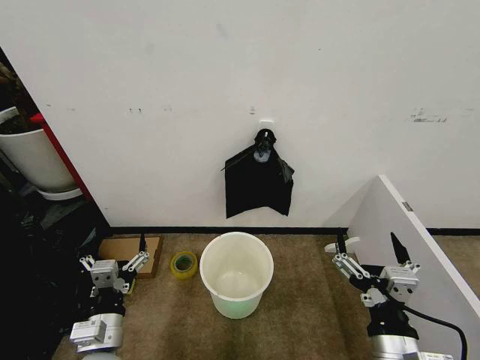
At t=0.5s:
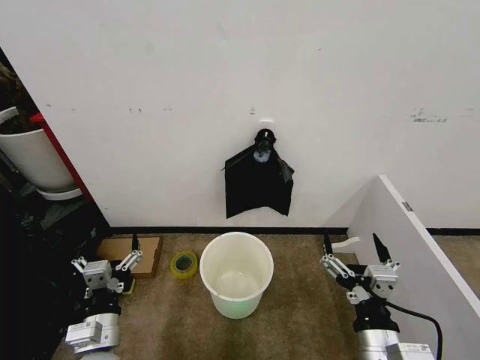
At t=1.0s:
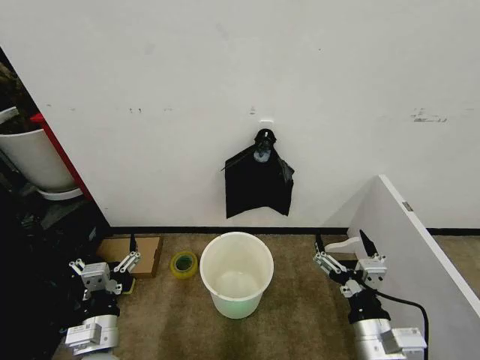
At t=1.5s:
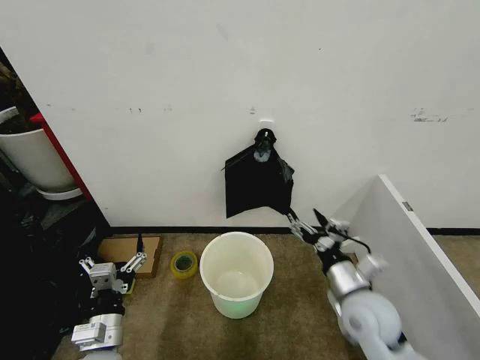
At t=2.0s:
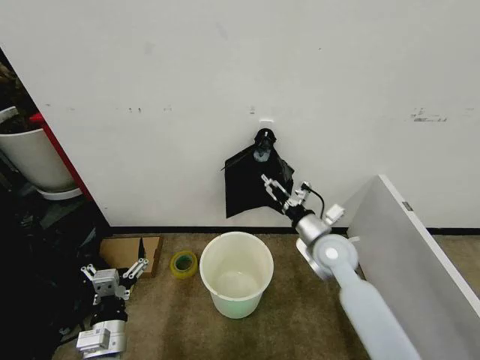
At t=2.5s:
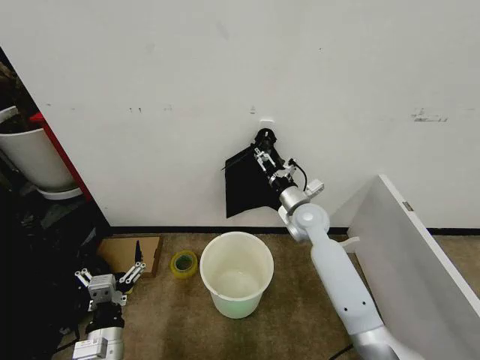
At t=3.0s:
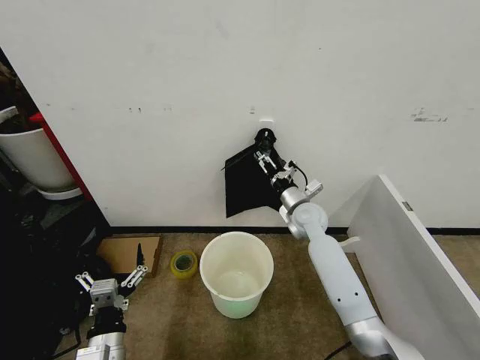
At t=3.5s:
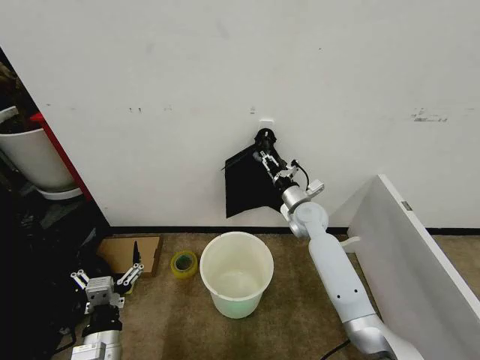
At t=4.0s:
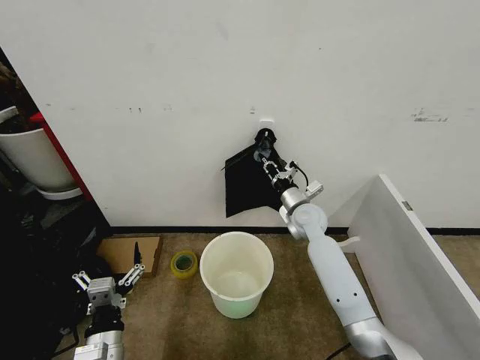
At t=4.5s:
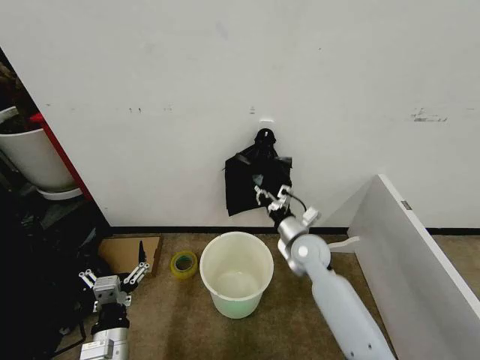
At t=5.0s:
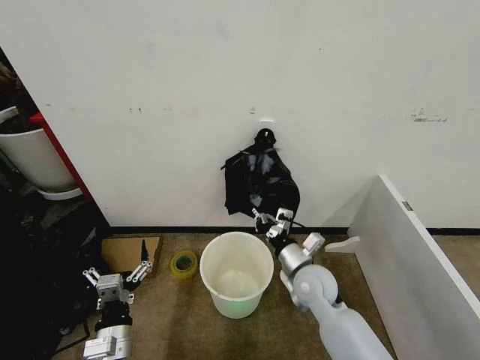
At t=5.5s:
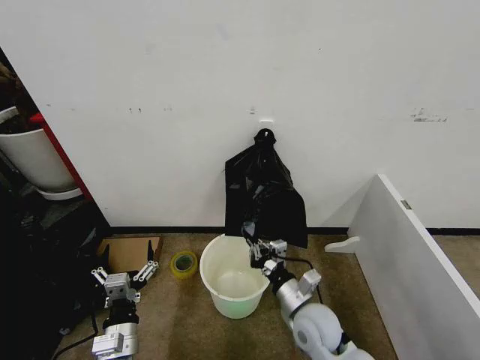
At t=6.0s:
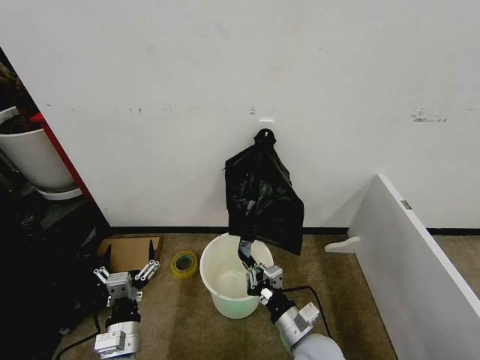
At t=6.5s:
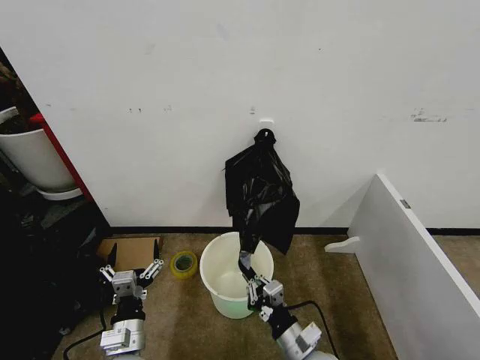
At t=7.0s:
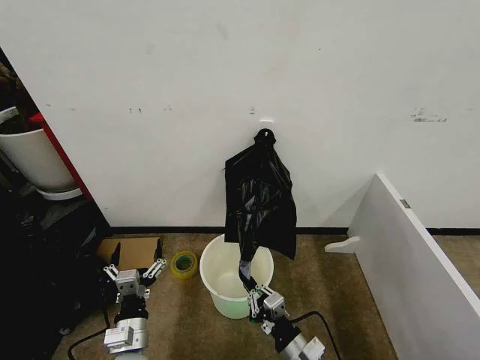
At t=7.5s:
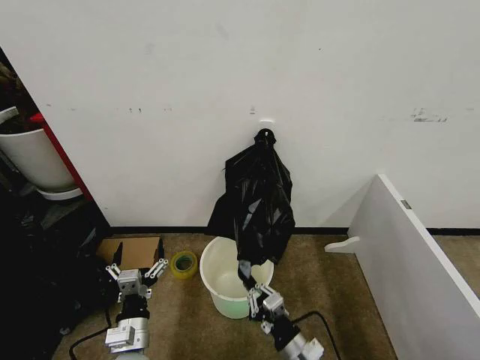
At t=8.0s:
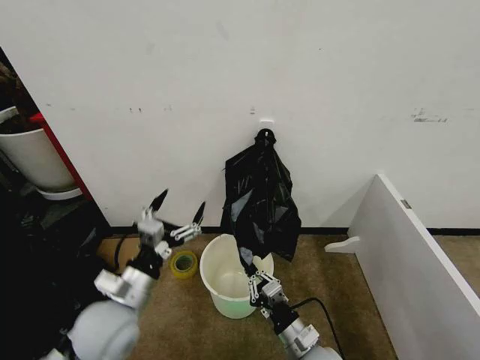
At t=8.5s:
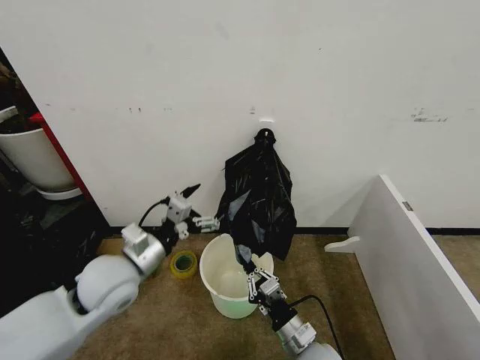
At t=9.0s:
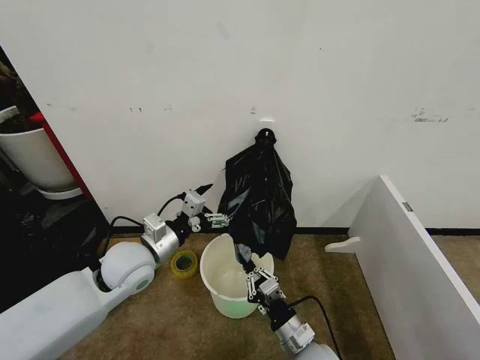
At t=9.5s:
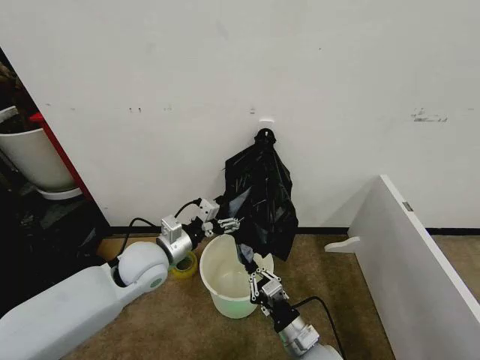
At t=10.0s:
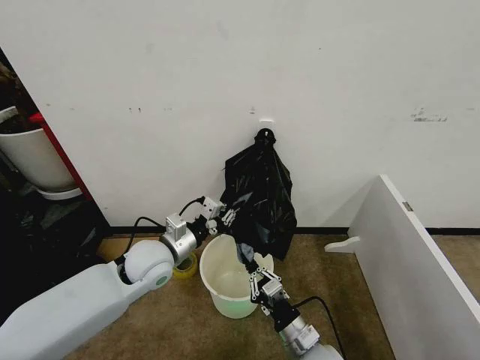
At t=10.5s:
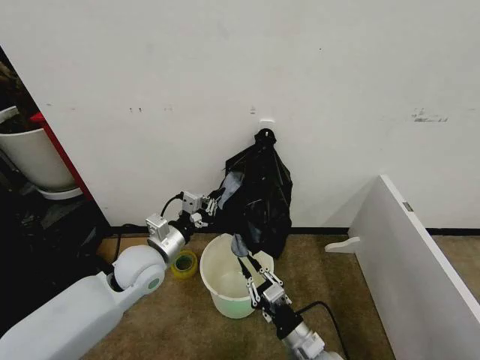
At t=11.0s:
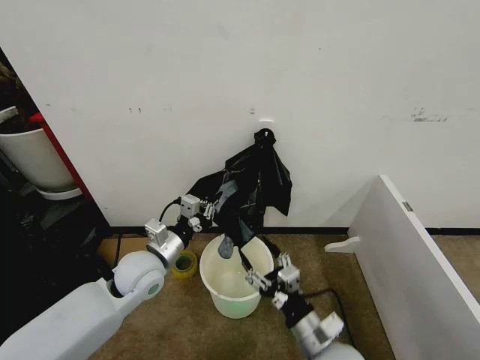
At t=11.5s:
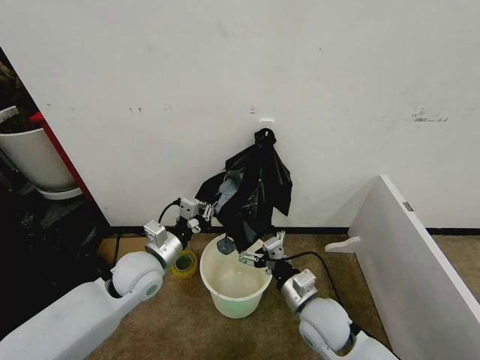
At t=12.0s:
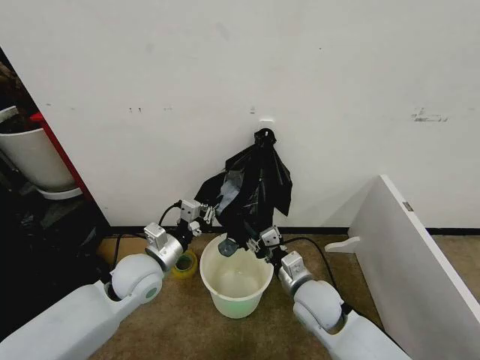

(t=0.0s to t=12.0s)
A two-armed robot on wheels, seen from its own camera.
Task of the whole recording: Place the garbage bag over the trash bin.
t=2.0s - t=4.0s: The right gripper goes approximately 10 cm forward, and closes its fingers.
t=4.0s - t=6.0s: The right gripper heads backward, covering roughly 30 cm.
t=6.0s - t=8.0s: The left gripper travels upward by roughly 5 cm.
t=8.0s - t=10.0s: The left gripper is displaced forward by some 15 cm, and closes its fingers.
t=10.0s - t=12.0s: The right gripper heads forward and upward, covering approximately 15 cm, and opens.

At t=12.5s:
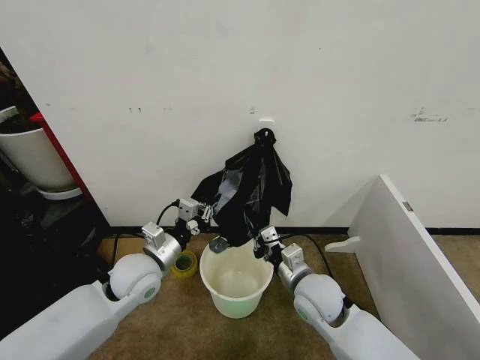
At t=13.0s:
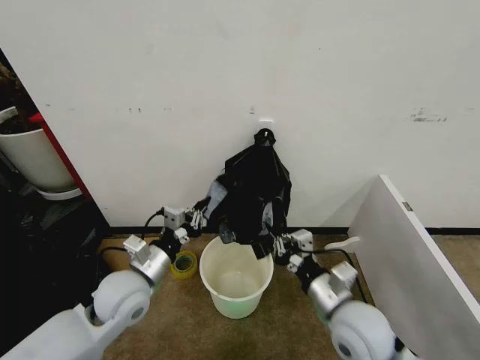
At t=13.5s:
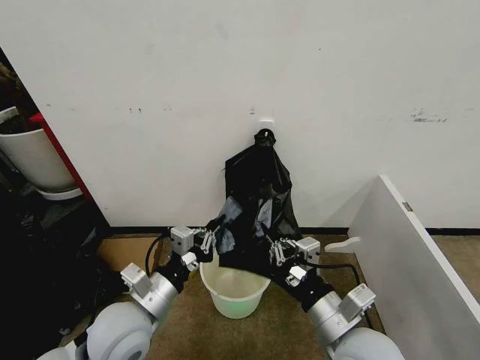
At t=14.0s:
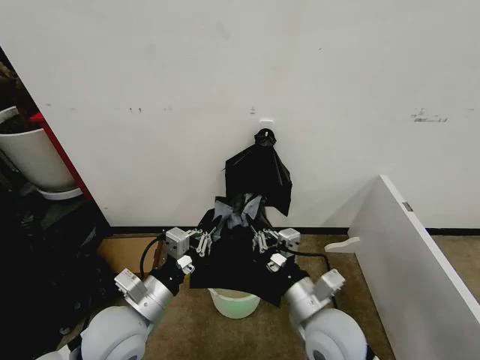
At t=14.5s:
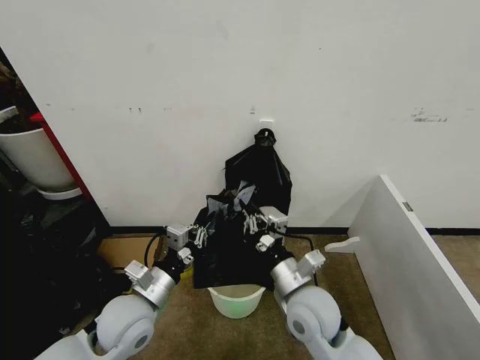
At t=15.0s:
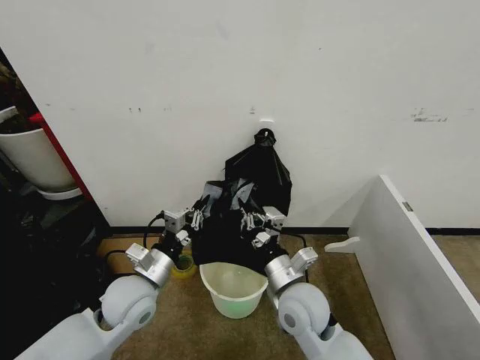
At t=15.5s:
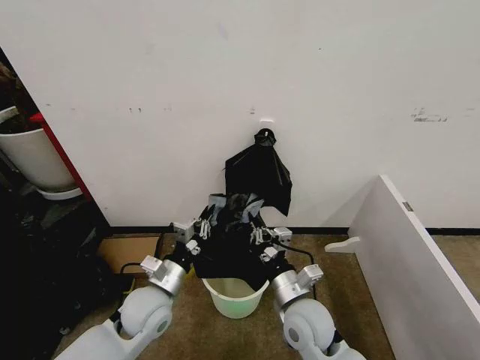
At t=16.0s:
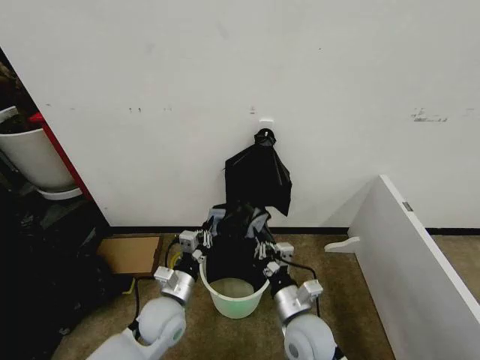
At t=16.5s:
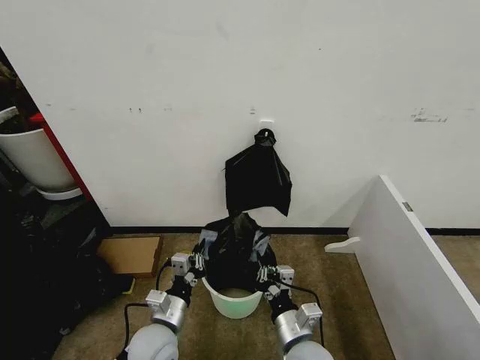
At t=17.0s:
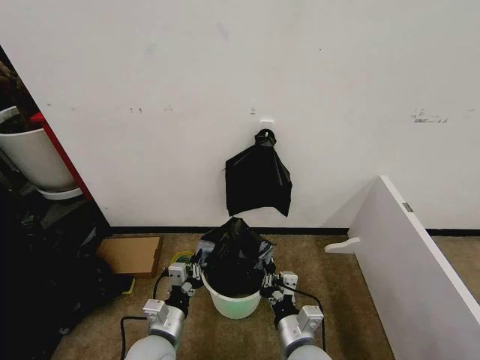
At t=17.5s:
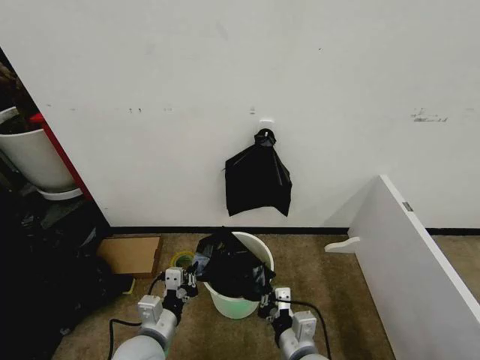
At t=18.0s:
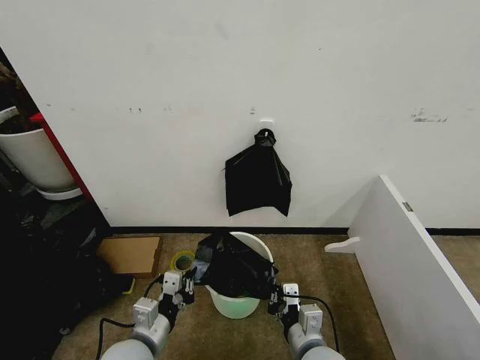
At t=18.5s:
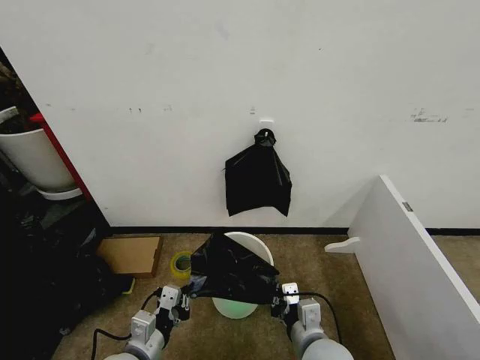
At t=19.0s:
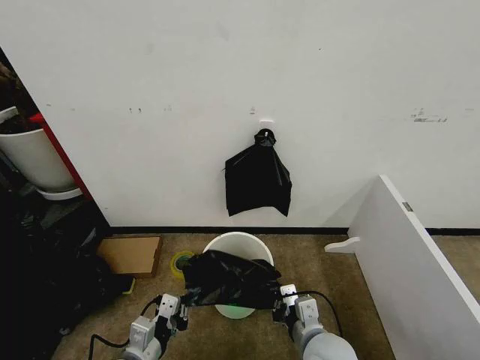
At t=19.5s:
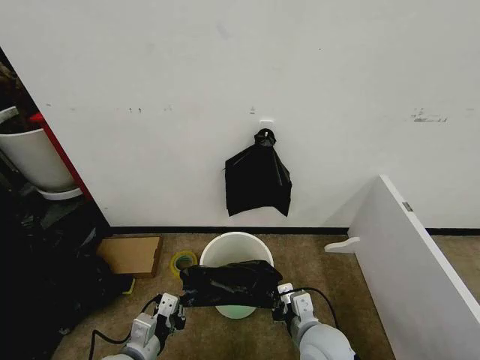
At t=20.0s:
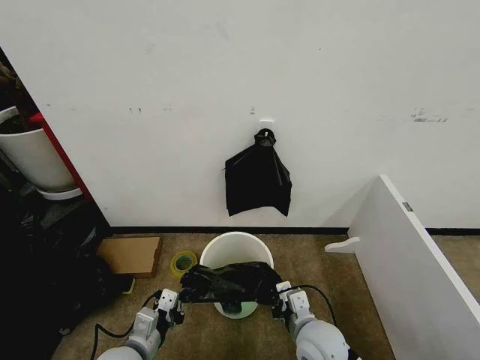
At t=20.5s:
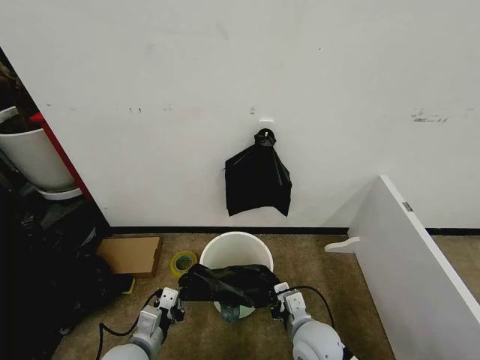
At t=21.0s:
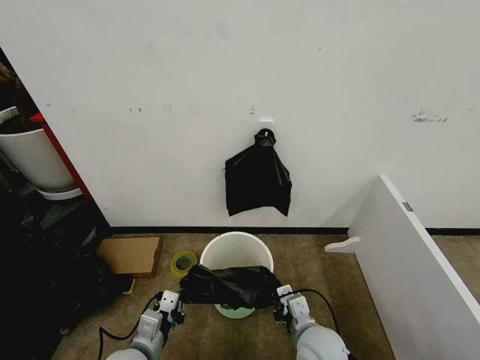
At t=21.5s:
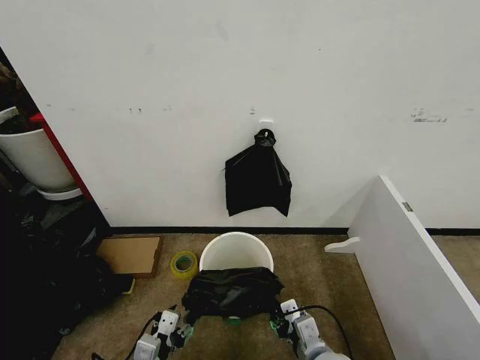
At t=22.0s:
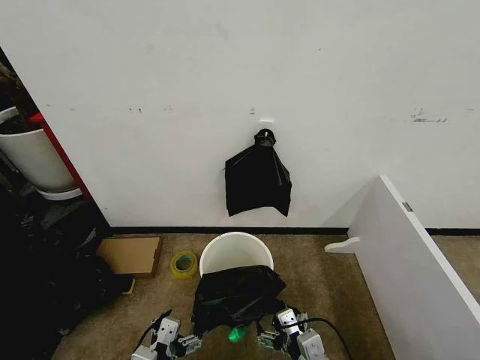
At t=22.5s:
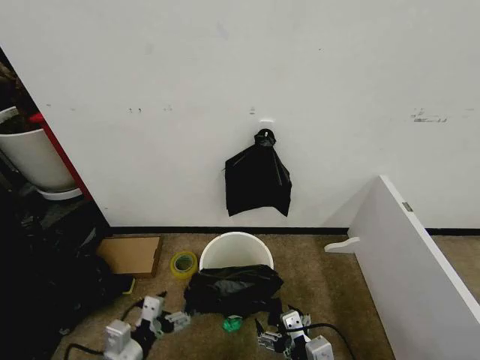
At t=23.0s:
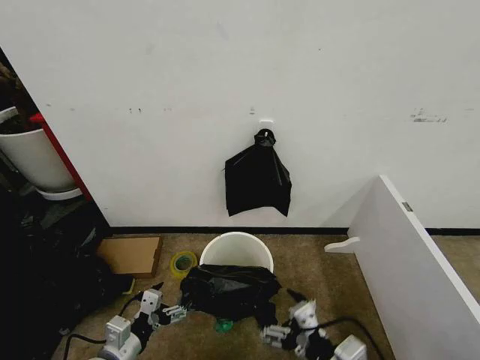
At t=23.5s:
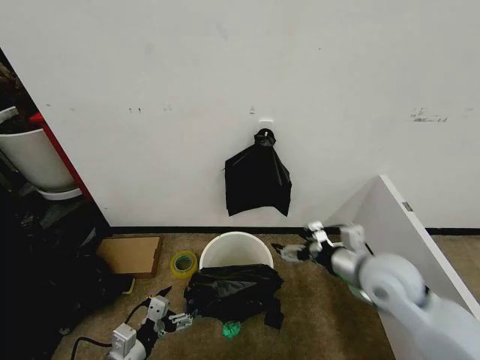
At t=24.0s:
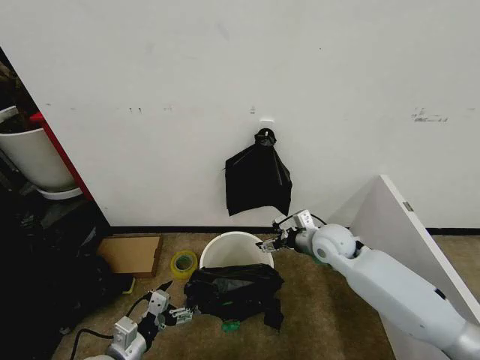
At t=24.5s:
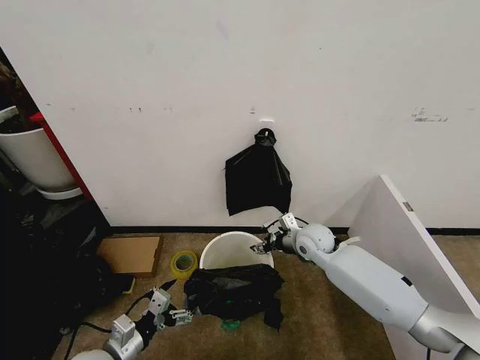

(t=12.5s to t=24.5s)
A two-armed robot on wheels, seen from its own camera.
Task of the whole recording: Place the garbage bag over the trash bin.
t=12.5s - t=14.5s: The left gripper shifts approximately 10 cm backward; the right gripper moves about 10 cm backward and comes back.
t=14.5s - t=16.5s: The left gripper goes roughly 10 cm downward, while the right gripper heads downward and backward, covering some 10 cm.
t=16.5s - t=18.5s: The left gripper moves backward, approximately 5 cm.
t=18.5s - t=20.5s: The right gripper moves about 5 cm.
t=20.5s - t=22.5s: The right gripper heads backward, covering some 10 cm, and opens its fingers. Meanwhile the left gripper ends up some 5 cm from where it was, and opens its fingers.
t=22.5s - t=24.5s: The right gripper travels forward by approximately 35 cm; the left gripper shifts by approximately 5 cm.

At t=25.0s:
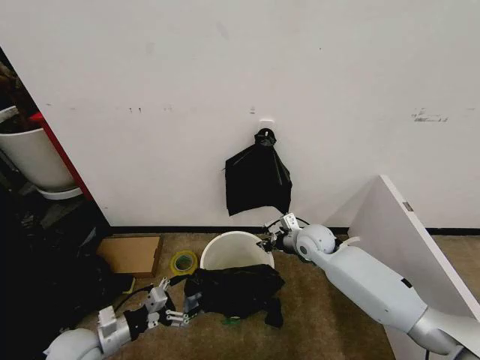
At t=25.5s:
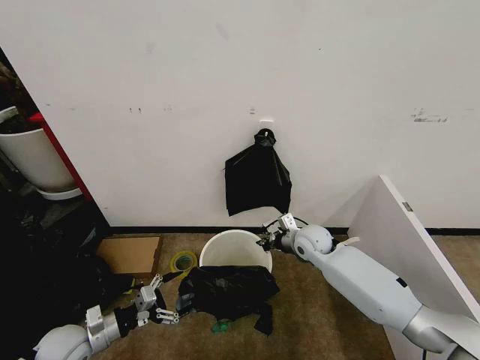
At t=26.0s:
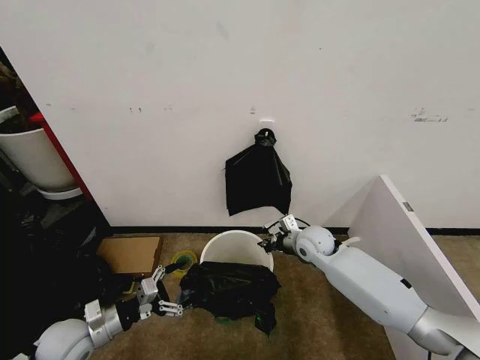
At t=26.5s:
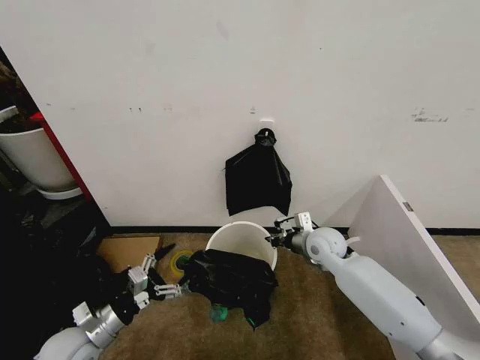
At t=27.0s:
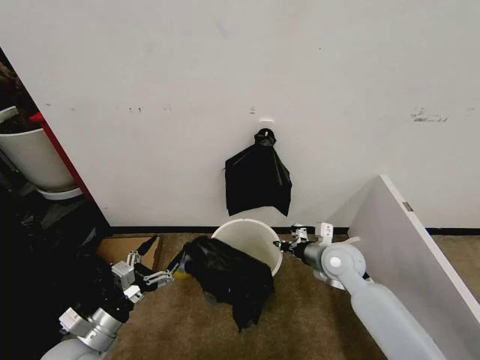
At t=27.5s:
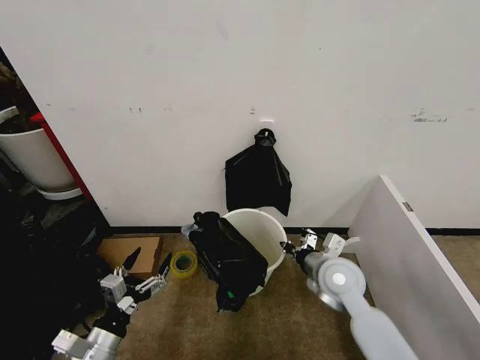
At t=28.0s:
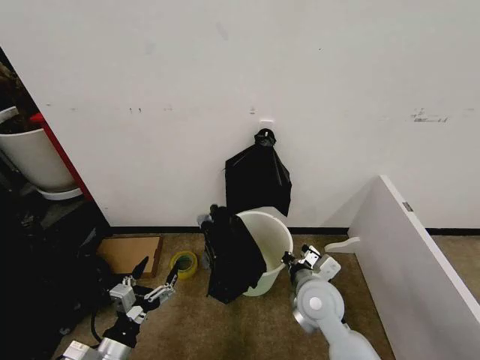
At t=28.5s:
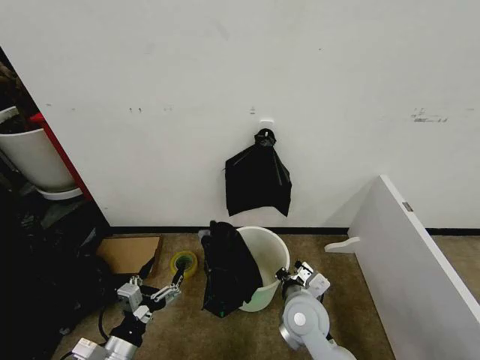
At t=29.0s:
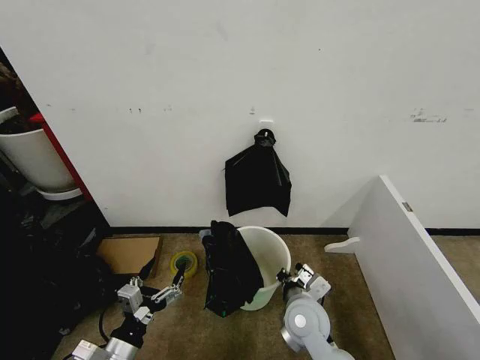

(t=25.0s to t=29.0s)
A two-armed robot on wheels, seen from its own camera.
Task of the whole recording: Place the garbage bag over the trash bin.
t=25.0s - t=27.0s: The right gripper is displaced backward by some 10 cm. Meanwhile the left gripper moves some 5 cm.
t=27.0s - t=29.0s: The left gripper shifts some 10 cm to the right and backward, while the right gripper travels backward, to the left and downward by some 15 cm.
